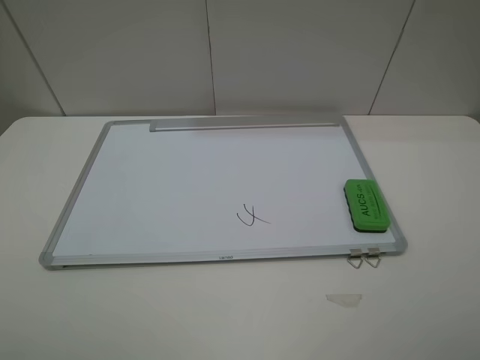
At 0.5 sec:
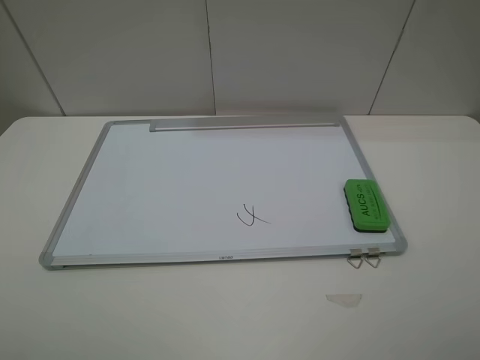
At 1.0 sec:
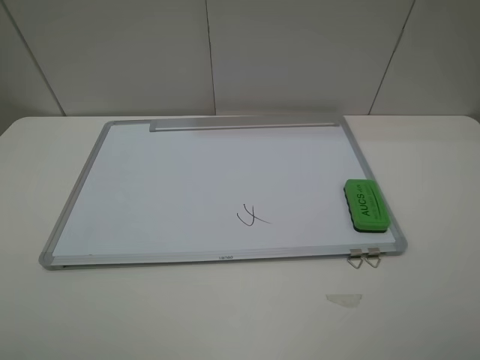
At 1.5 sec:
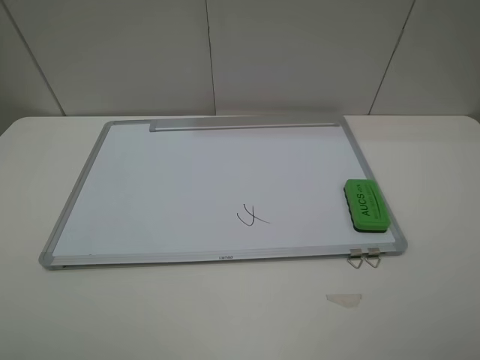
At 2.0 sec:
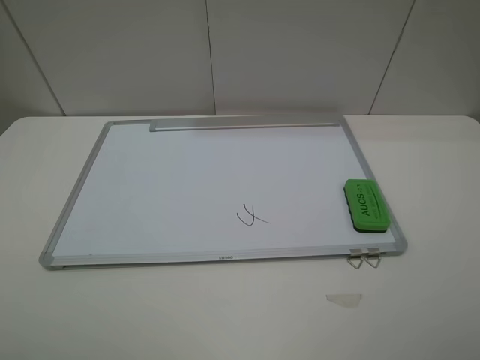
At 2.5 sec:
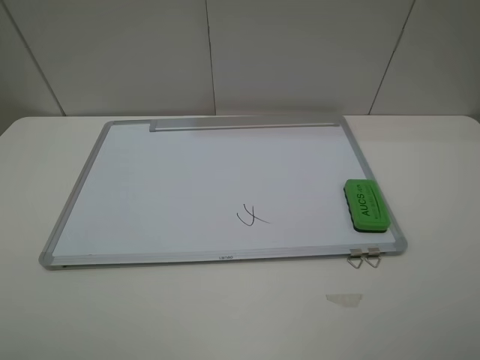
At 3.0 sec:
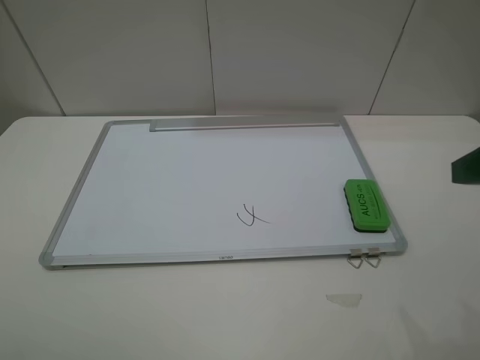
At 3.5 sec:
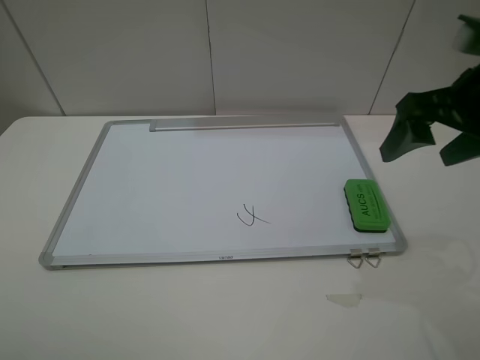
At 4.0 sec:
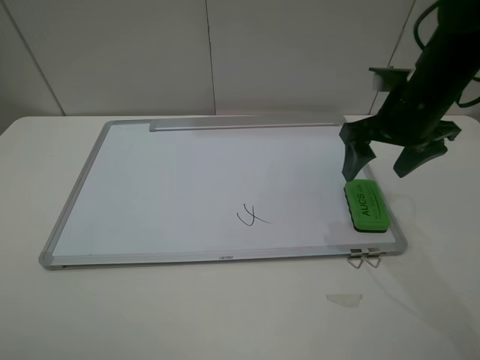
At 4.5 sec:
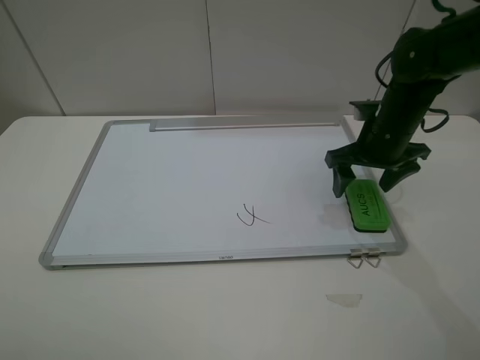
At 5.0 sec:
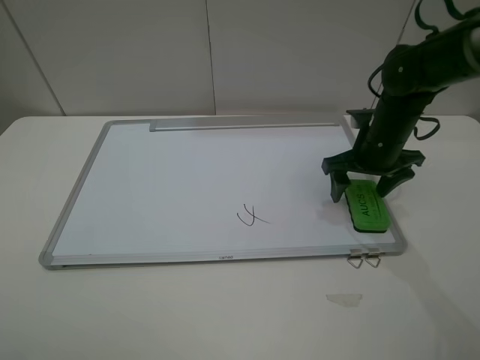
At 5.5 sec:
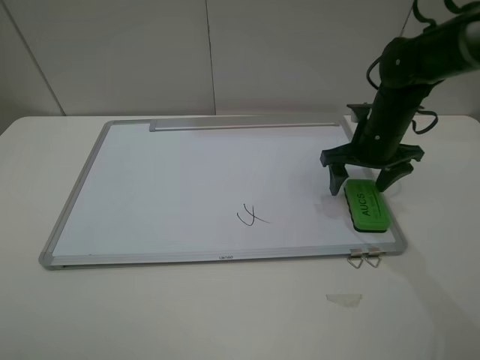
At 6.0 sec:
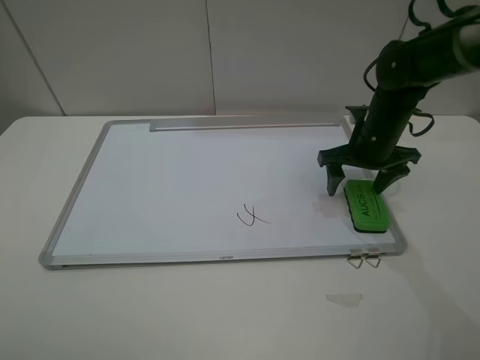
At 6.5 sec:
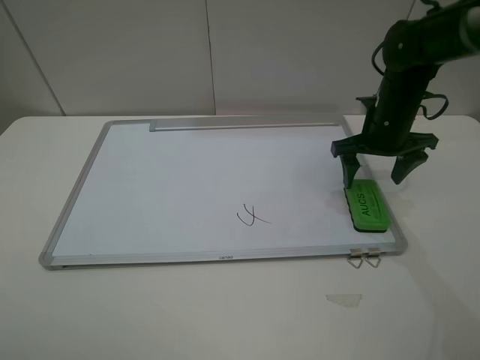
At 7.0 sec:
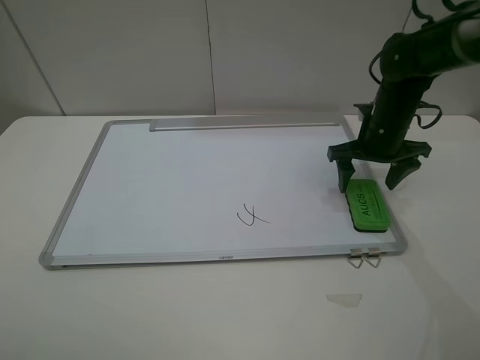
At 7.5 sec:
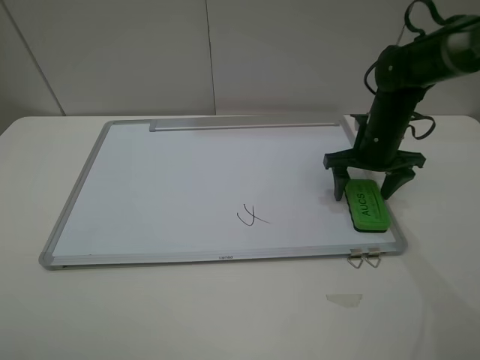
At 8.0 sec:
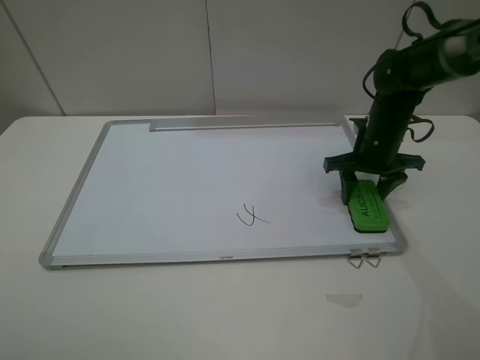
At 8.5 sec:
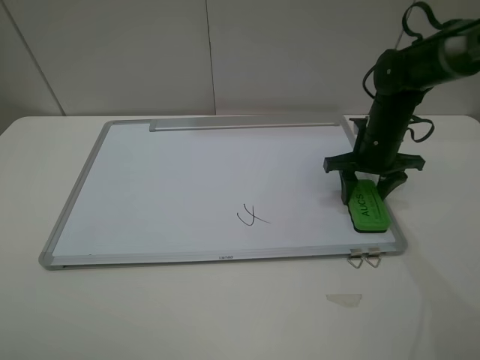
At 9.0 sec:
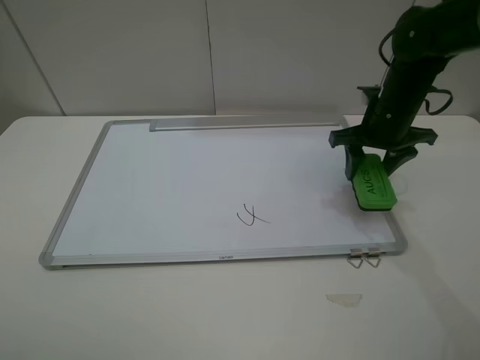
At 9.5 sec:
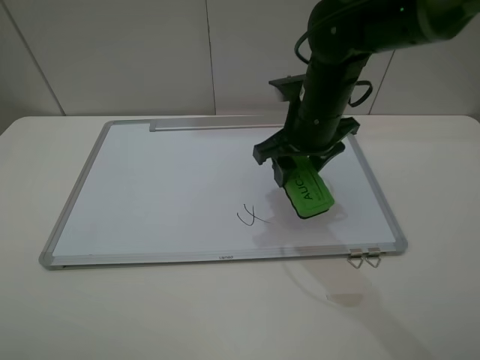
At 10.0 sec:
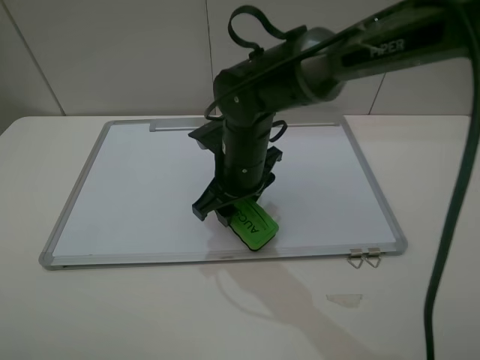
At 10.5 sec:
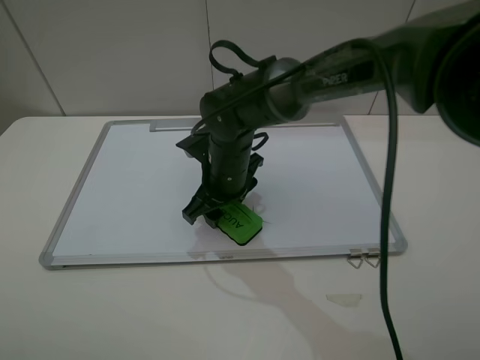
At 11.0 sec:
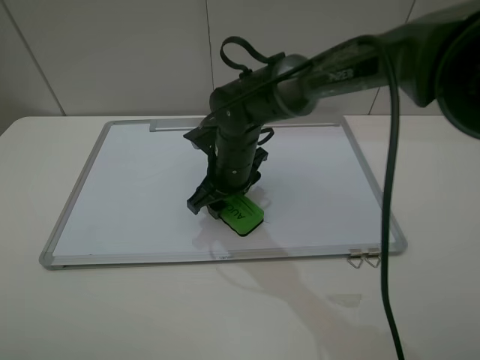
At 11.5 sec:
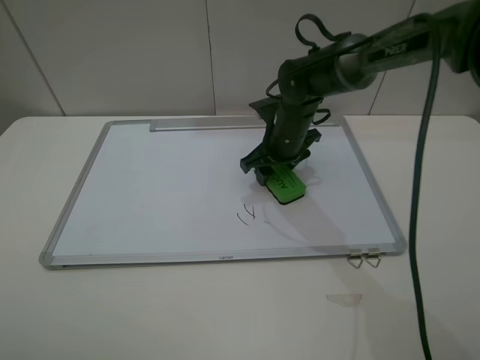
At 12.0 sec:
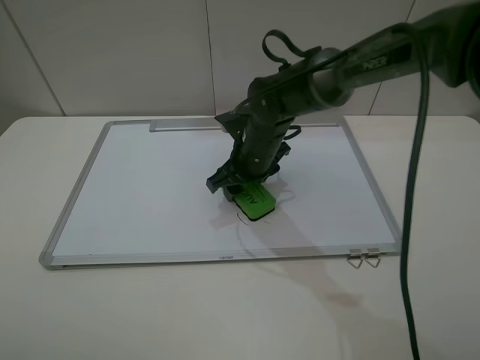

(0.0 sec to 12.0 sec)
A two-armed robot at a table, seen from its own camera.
Step, 0.0 sec - 8.0 sec: Grasp the eraser with the right gripper.
0.0 sec - 2.0 sec: Both grippers stay put.
2.0 sec - 4.0 sec: The right gripper moves forward, roughly 30 cm.
4.0 sec - 6.0 sec: The right gripper goes roughly 10 cm downward.
6.0 sec - 8.0 sec: The right gripper closes up.
8.0 sec - 10.0 sec: The right gripper is displaced to the left by some 25 cm.
10.0 sec - 12.0 sec: The right gripper reaches approximately 10 cm to the right, then returns.

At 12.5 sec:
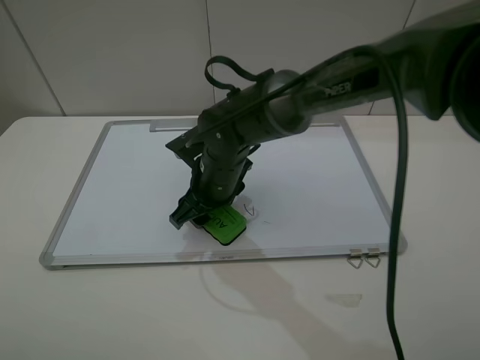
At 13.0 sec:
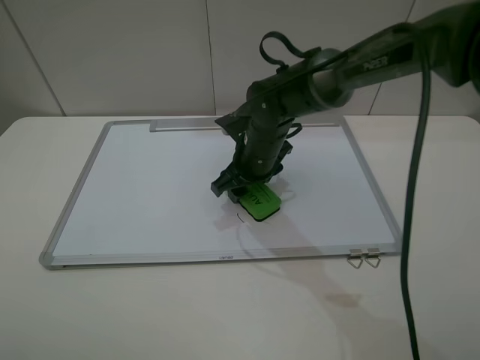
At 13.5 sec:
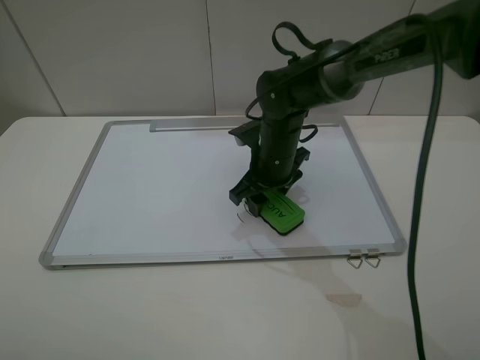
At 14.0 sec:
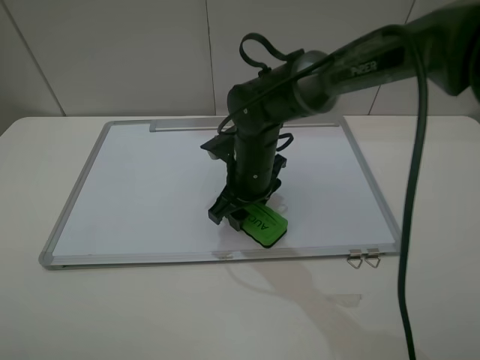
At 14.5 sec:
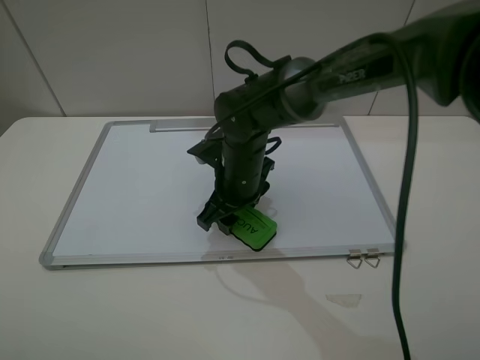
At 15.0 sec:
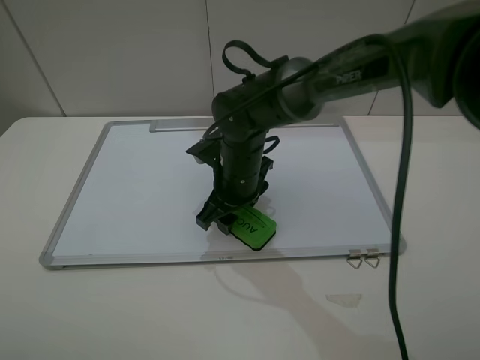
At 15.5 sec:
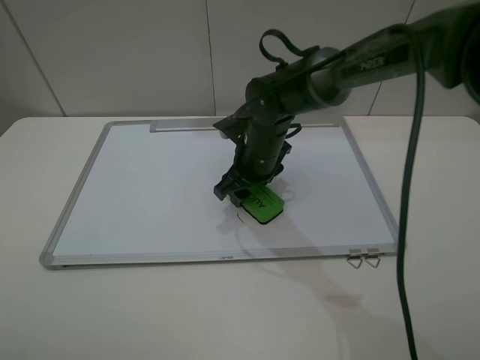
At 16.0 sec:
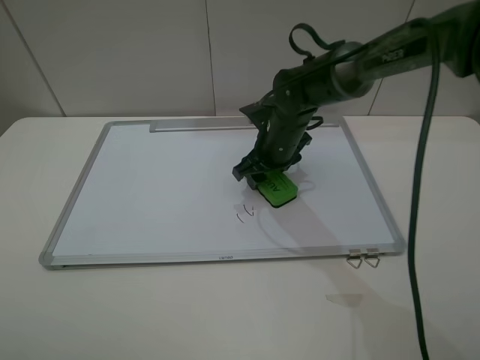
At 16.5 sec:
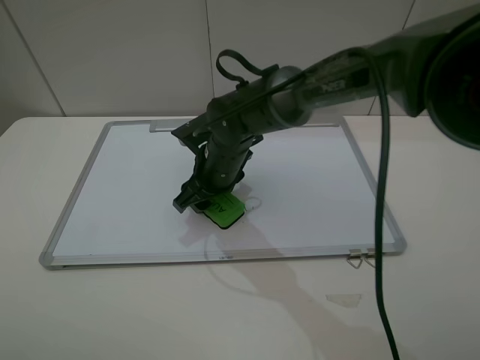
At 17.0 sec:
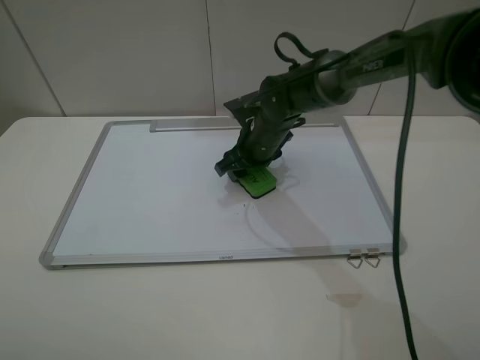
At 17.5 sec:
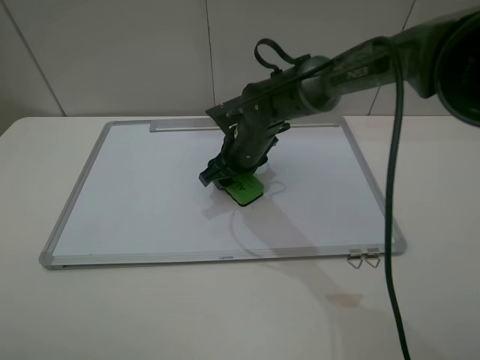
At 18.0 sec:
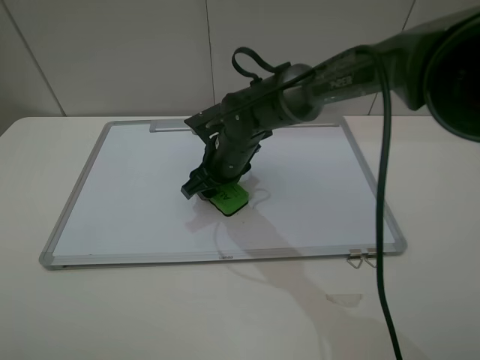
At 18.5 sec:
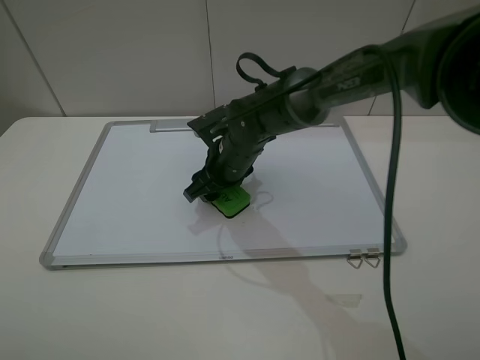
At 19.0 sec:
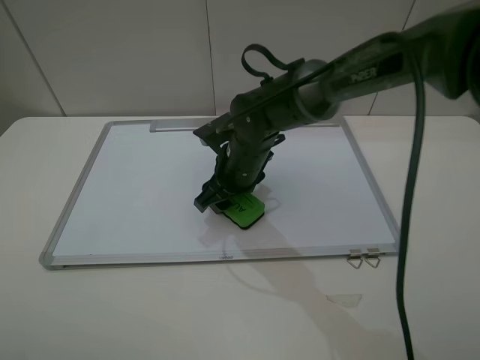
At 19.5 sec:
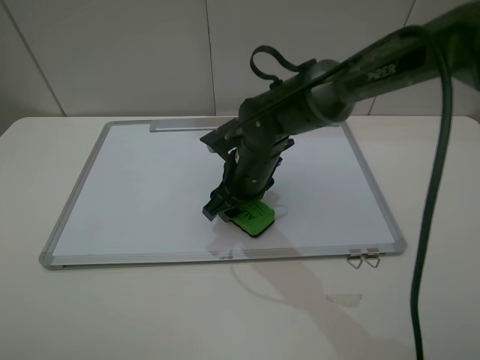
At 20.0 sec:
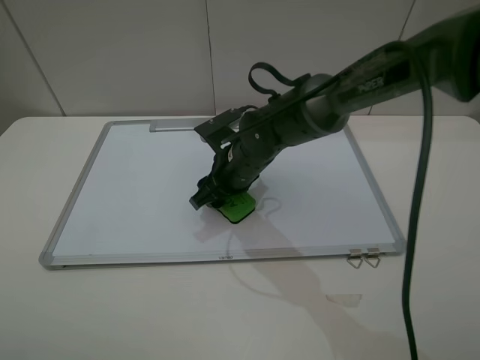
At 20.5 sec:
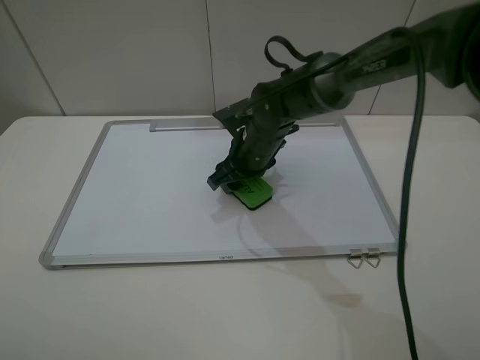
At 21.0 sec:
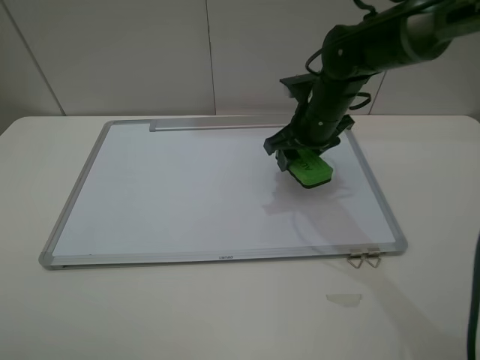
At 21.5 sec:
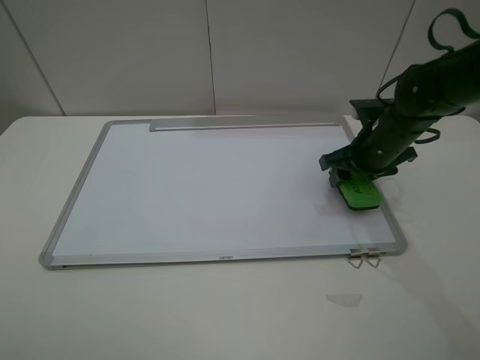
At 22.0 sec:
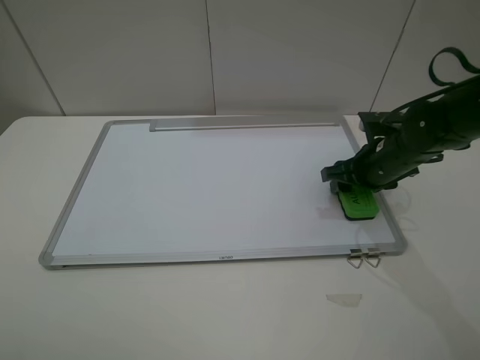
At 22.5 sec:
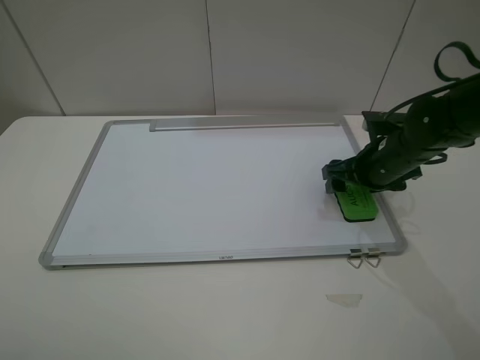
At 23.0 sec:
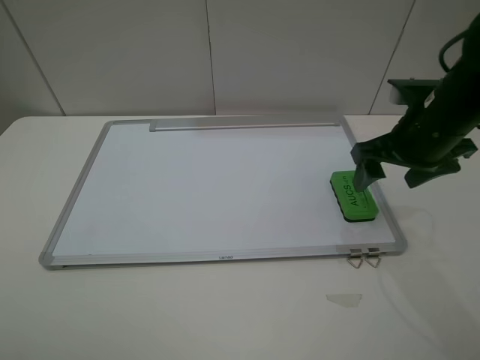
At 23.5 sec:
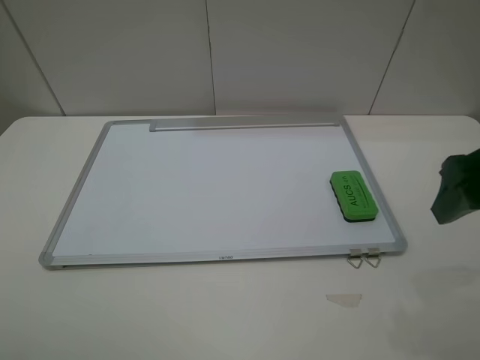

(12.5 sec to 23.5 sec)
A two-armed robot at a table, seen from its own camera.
Step, 12.5 sec - 20.0 sec: Grasp the eraser and wipe the blackboard with the right gripper.
Step, 20.5 sec - 22.5 sec: Place the eraser with the right gripper.
12.5 sec - 14.5 sec: The right gripper travels to the right and back again, about 10 cm each way.
14.5 sec - 16.0 sec: The right gripper travels forward and to the right by about 10 cm.
16.0 sec - 18.0 sec: The right gripper goes left and right, approximately 10 cm each way, reversing 2 times.
18.0 sec - 20.0 sec: The grippers move only a little.
20.0 sec - 21.5 sec: The right gripper travels to the right by about 20 cm.
21.5 sec - 23.5 sec: The right gripper heads backward and upward, covering roughly 25 cm, and opens its fingers.

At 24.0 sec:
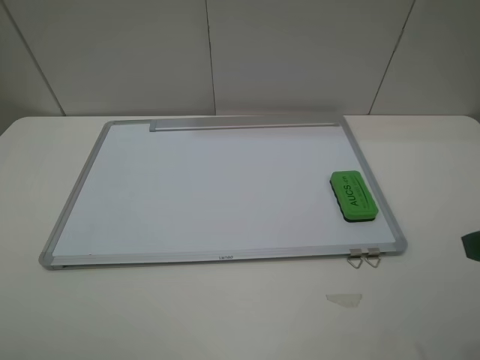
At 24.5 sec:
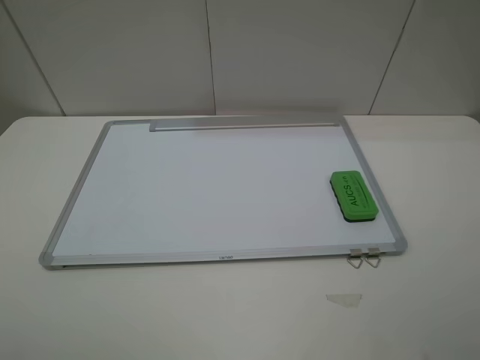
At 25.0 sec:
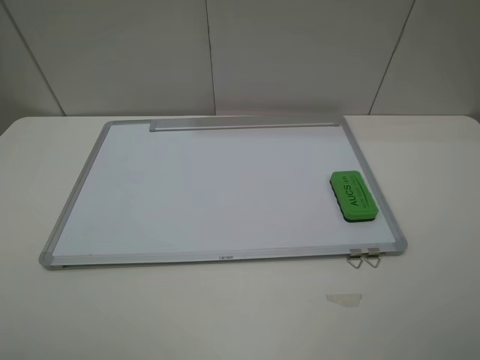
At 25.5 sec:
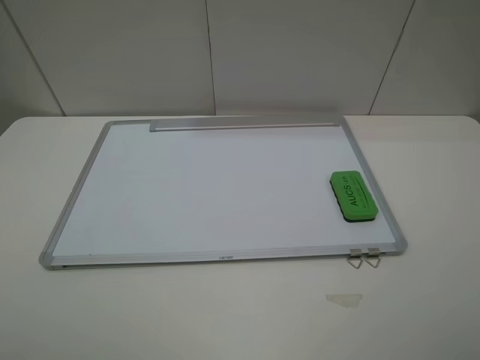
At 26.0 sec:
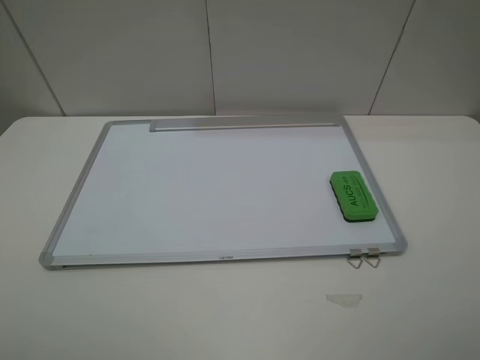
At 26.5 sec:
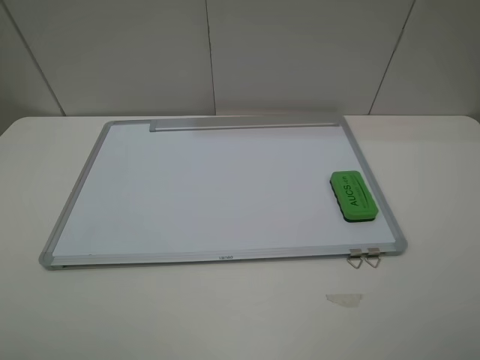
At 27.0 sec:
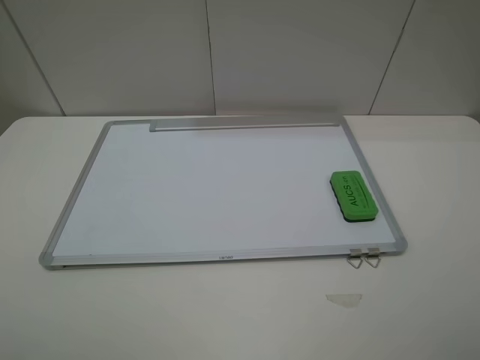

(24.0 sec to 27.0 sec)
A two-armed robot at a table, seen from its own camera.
25.5 sec - 27.0 sec: Neither gripper changes place.
